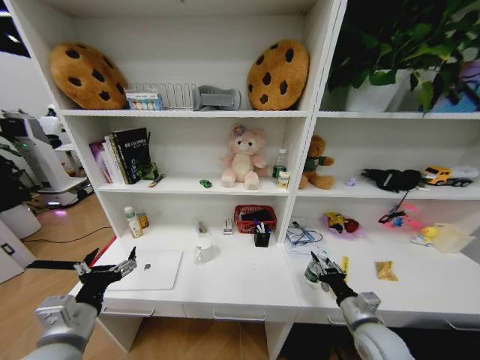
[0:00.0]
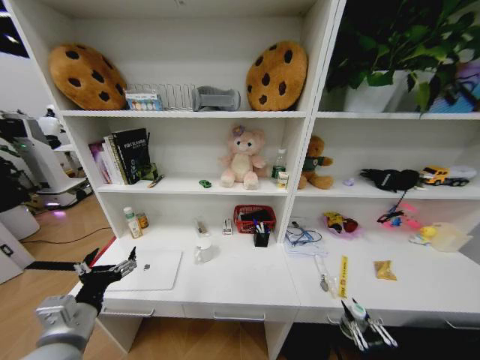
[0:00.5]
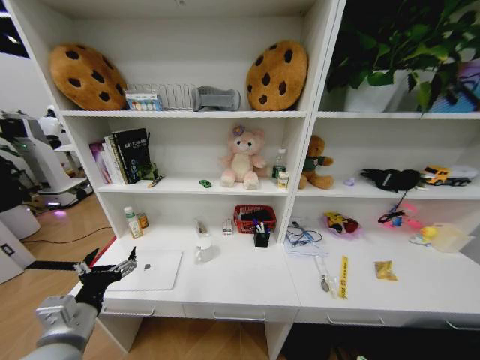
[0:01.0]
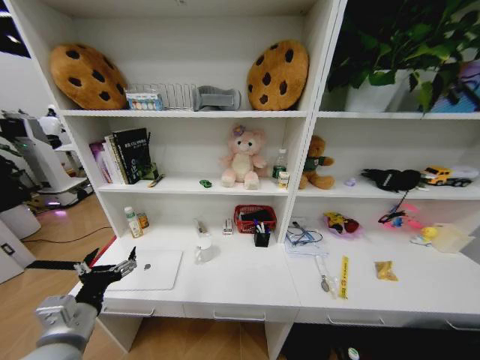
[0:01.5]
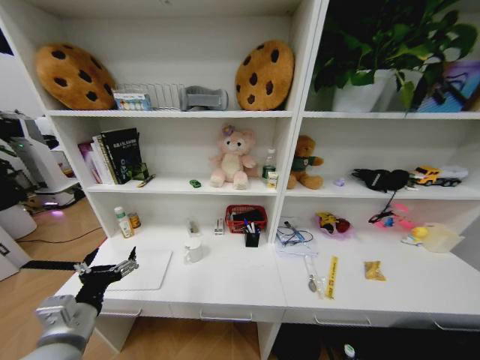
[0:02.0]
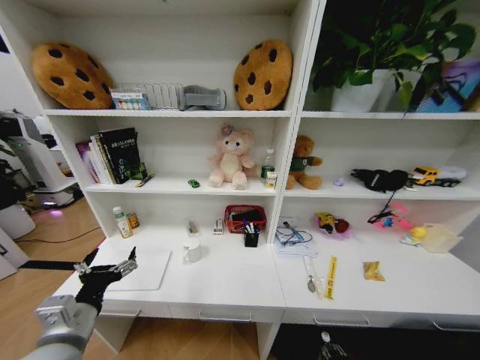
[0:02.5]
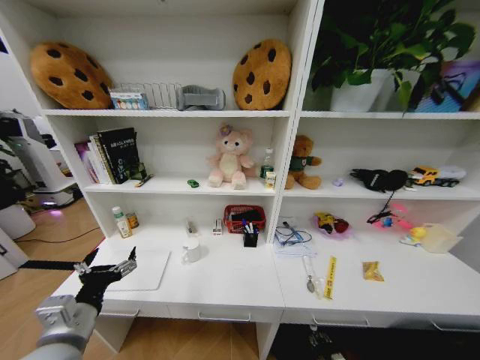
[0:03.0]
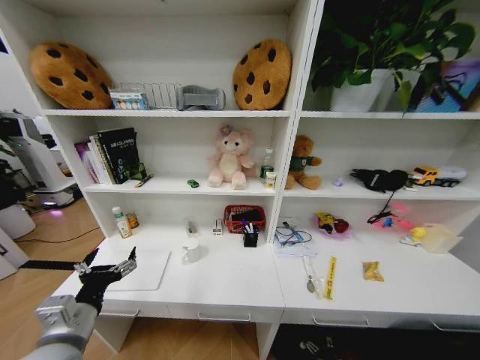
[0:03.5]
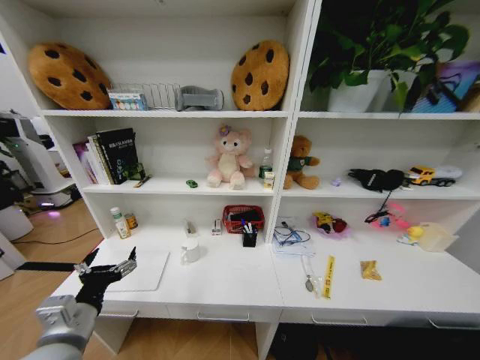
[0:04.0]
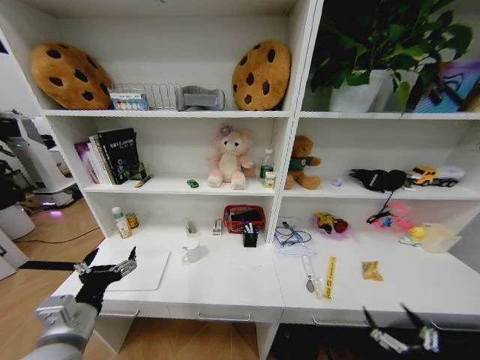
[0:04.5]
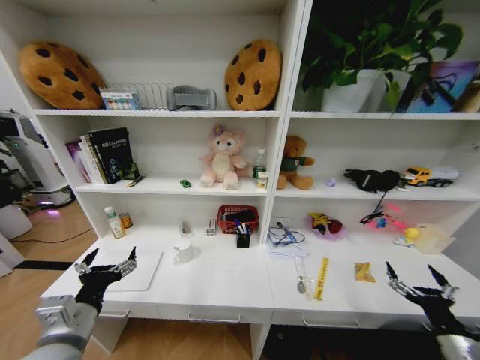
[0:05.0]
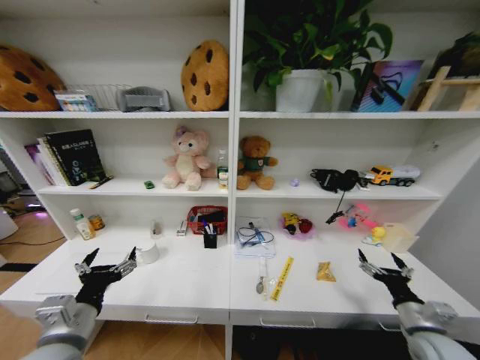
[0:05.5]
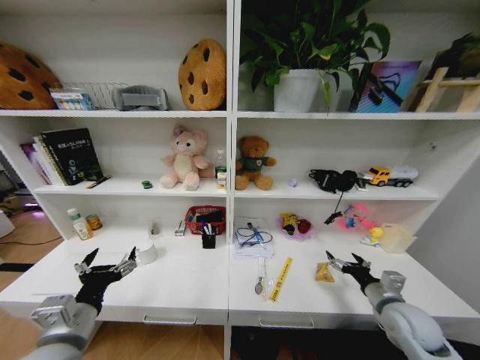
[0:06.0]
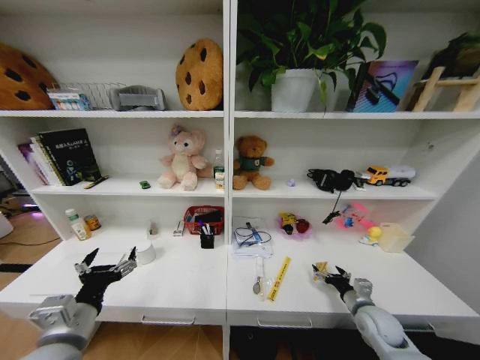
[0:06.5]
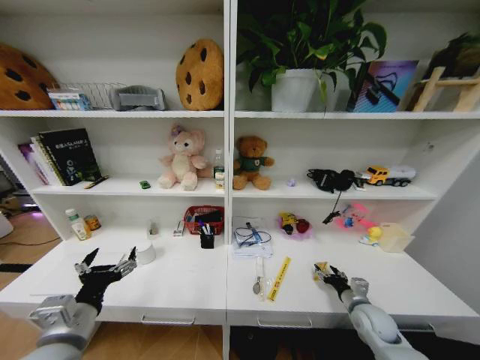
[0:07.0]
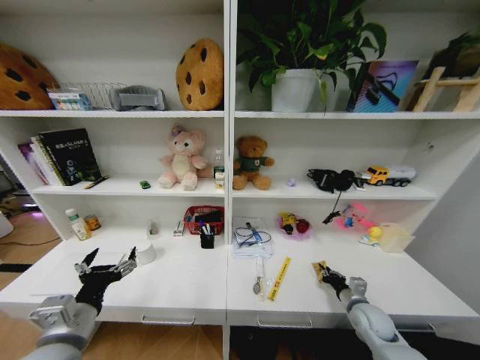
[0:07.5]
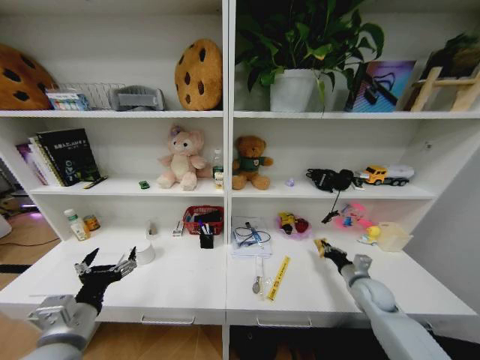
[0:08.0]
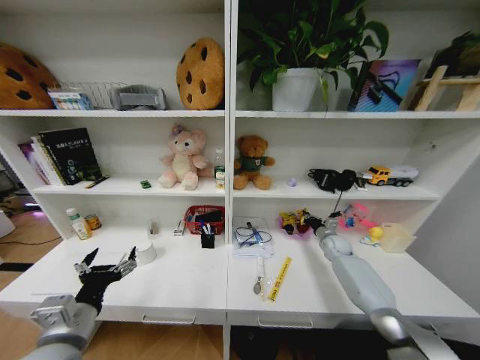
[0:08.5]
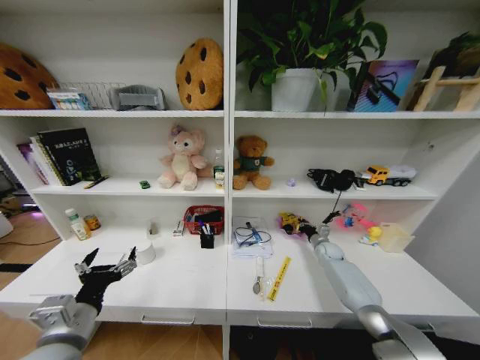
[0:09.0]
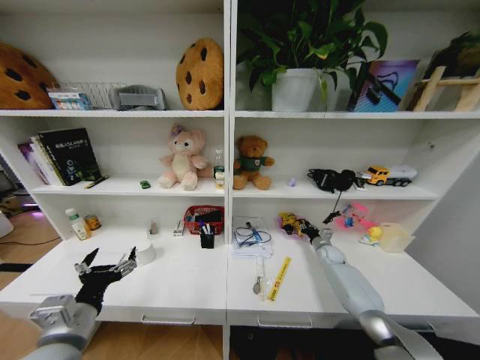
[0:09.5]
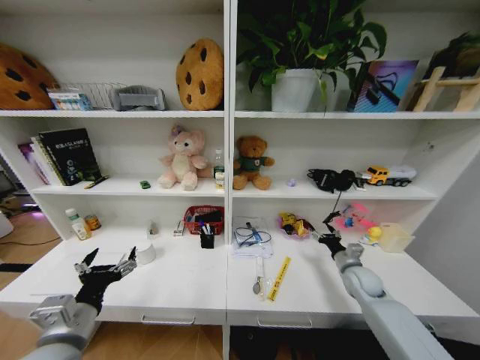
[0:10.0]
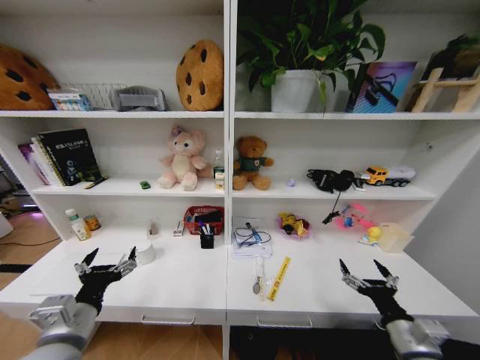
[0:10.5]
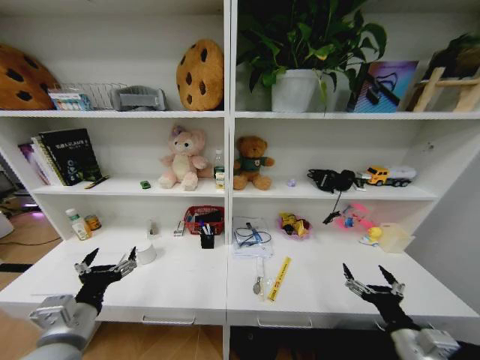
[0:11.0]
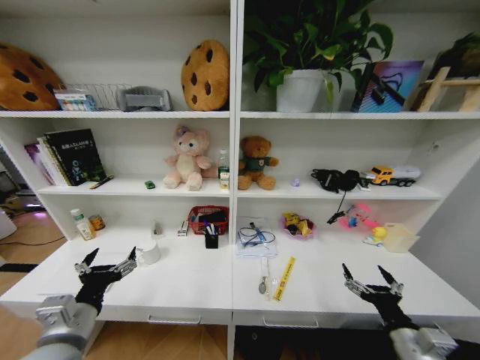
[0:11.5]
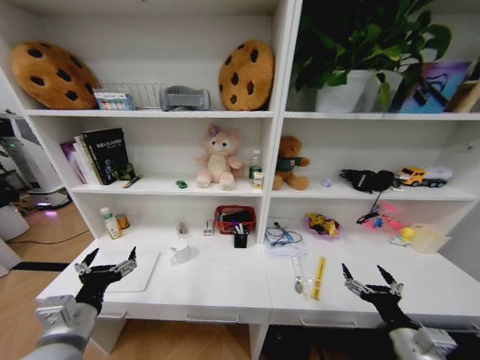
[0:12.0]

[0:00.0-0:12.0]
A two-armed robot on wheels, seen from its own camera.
Task of the whole recording: Organize the objects on the table.
0:00.0 to 0:02.0: The right gripper is displaced downward and backward by about 35 cm.
0:02.0 to 0:04.0: The right gripper shifts some 10 cm backward and upward, and opens its fingers.
0:04.0 to 0:06.0: The right gripper moves forward and upward, about 40 cm.
0:06.0 to 0:08.0: The right gripper heads downward and forward, covering about 10 cm, and closes up.
0:08.0 to 0:10.0: The right gripper reaches some 20 cm forward, then returns, and opens its fingers.
0:10.0 to 0:12.0: The right gripper goes some 25 cm backward.
